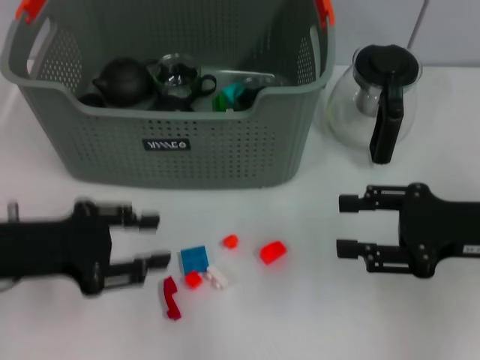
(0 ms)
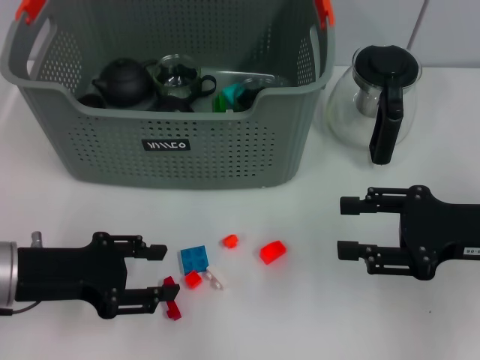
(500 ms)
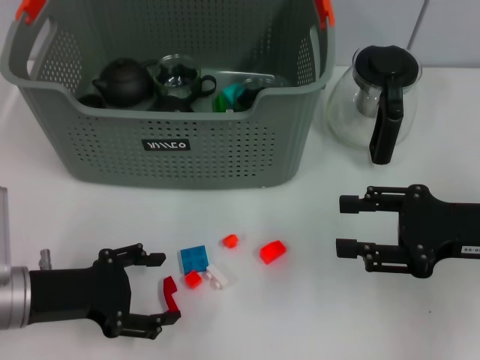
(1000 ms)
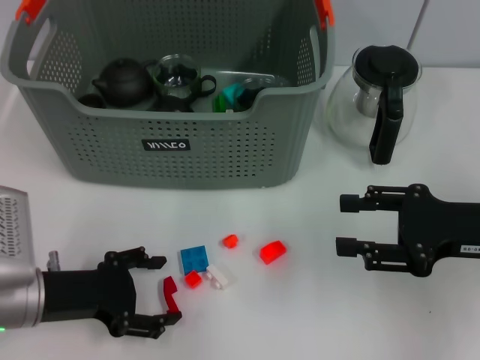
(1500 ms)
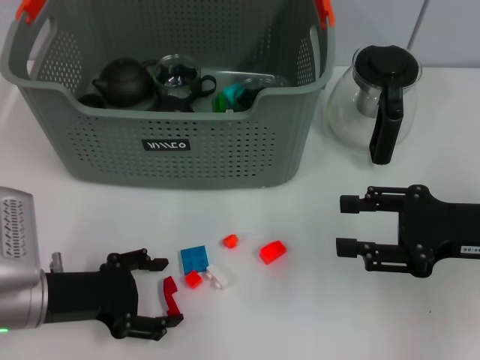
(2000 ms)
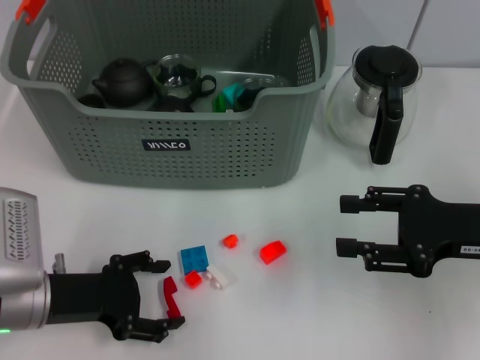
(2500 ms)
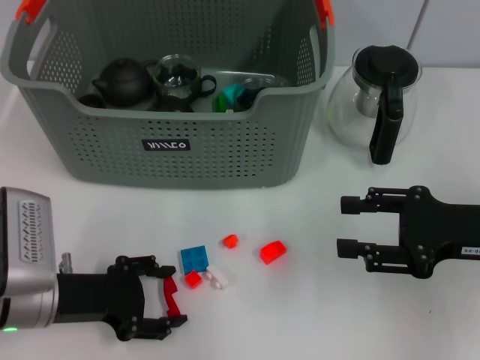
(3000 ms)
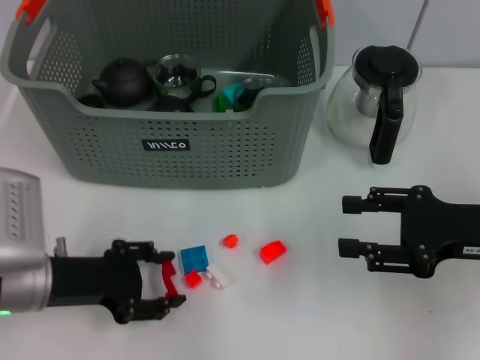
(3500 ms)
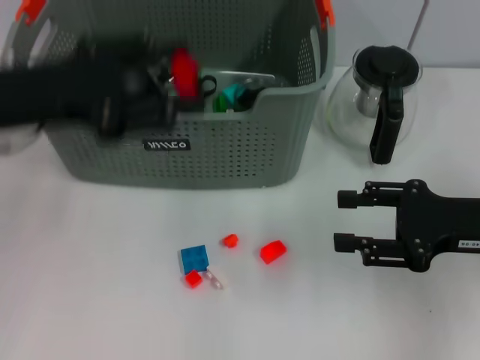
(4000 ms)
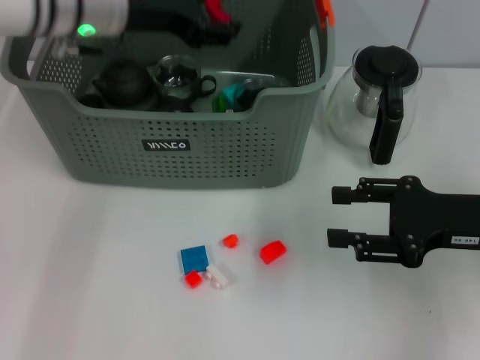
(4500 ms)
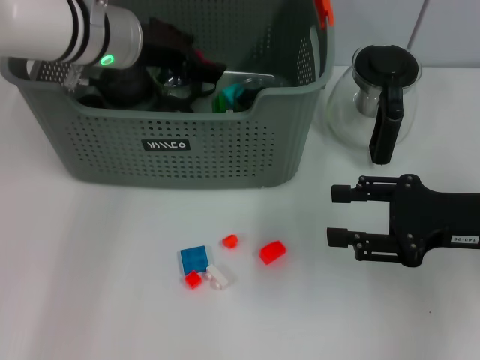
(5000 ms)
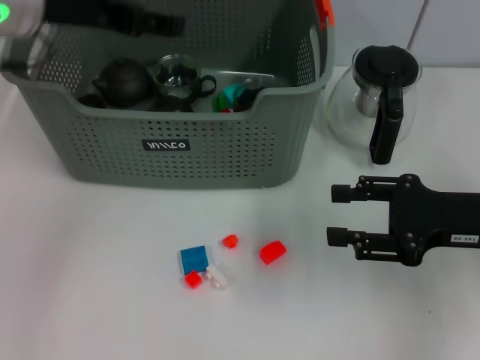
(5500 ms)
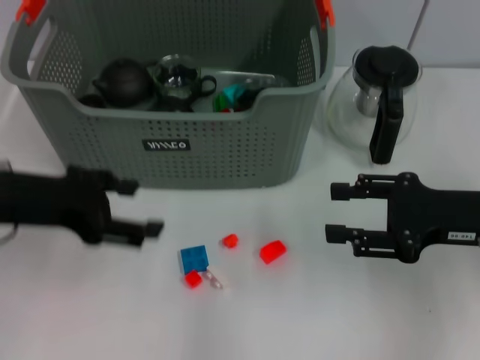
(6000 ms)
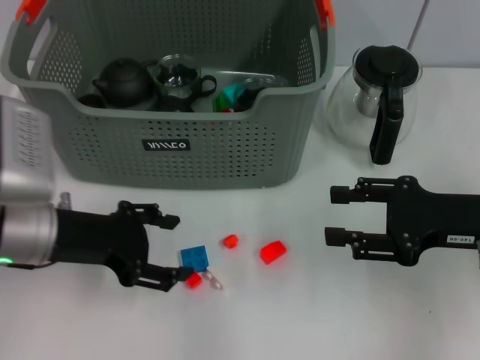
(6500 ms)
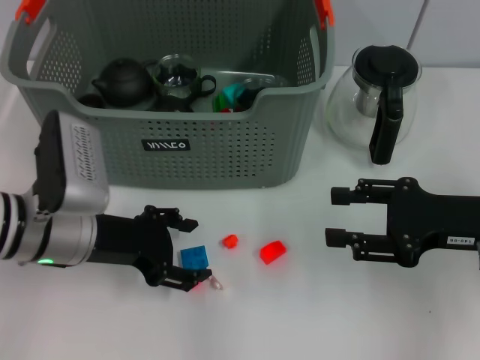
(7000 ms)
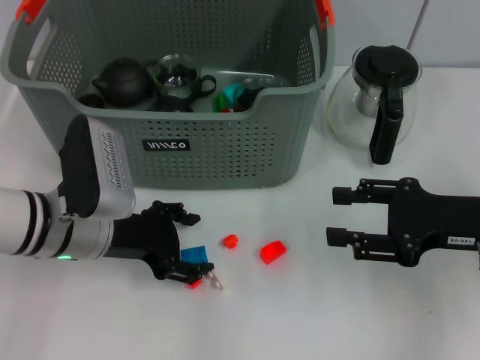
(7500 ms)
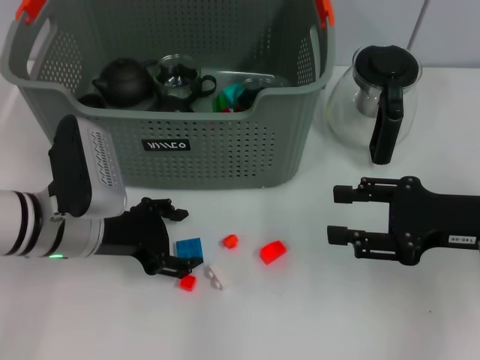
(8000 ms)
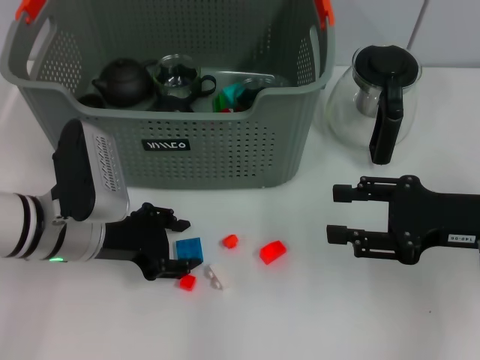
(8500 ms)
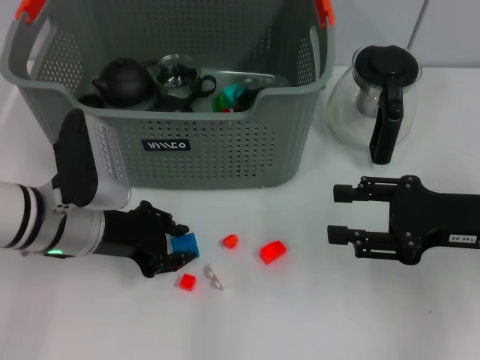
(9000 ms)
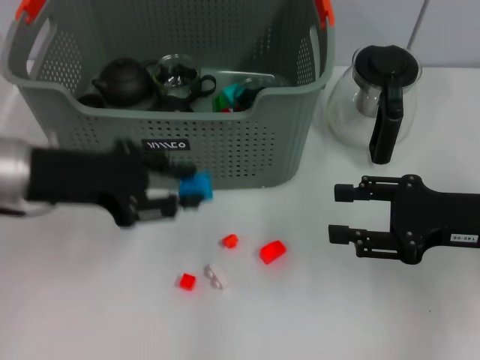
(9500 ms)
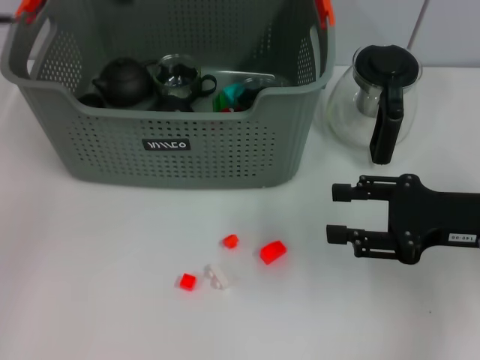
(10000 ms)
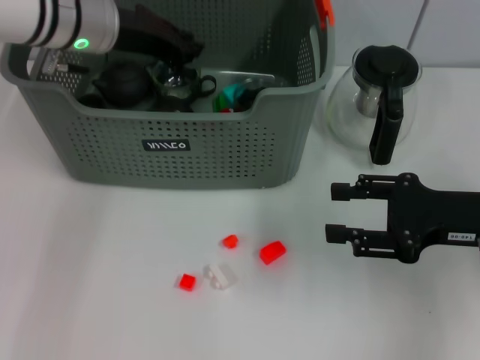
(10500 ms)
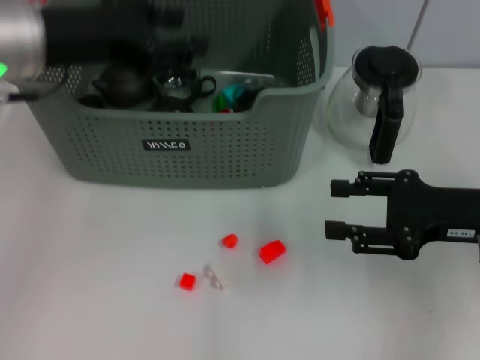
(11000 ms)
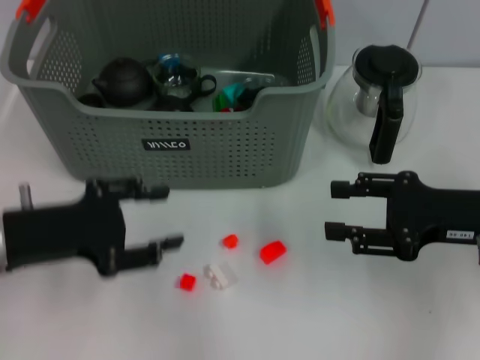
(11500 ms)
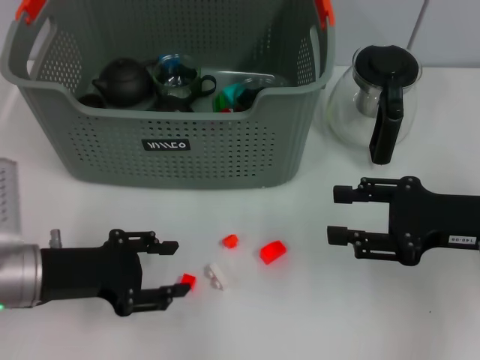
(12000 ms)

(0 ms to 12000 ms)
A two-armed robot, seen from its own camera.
Task of the whole recording: pick up the teacup on the table and place it into the storage bin, pick up the block on the table and place it into the storage bin.
Step, 0 ms - 3500 ms: Grasp the red block with left gripper.
Step, 4000 ms - 5000 ms: Place the red block in the storage box with left gripper.
Step, 6000 ms - 9000 ms: Grasp the dark blue block with left gripper.
Step, 9500 ms - 10000 ms: Place the dark blue block in the storage box with left gripper.
0 ms - 2000 ms: The left gripper moves downward, about 10 cm, and opens its fingers.
2000 ms - 4000 ms: The left gripper goes some 15 cm upward.
4000 ms - 6000 ms: The left gripper reaches some 15 cm forward, then returns.
6000 ms - 8000 ms: The left gripper moves downward and to the right, roughly 10 cm.
8000 ms - 10000 ms: The left gripper goes roughly 20 cm upward, and closes up.
10000 ms - 12000 ms: The left gripper heads downward and backward, covering some 25 cm.

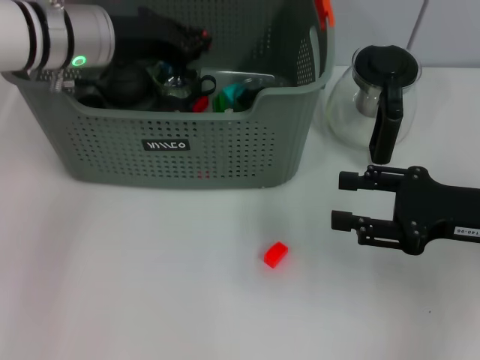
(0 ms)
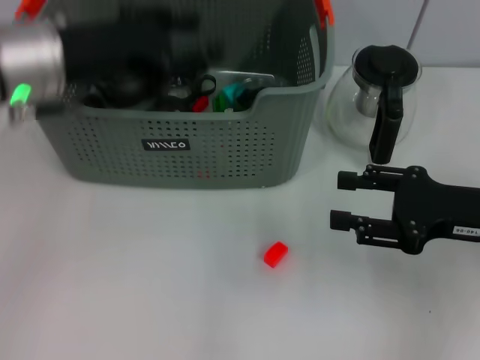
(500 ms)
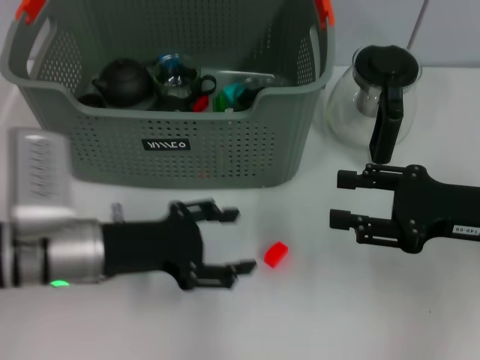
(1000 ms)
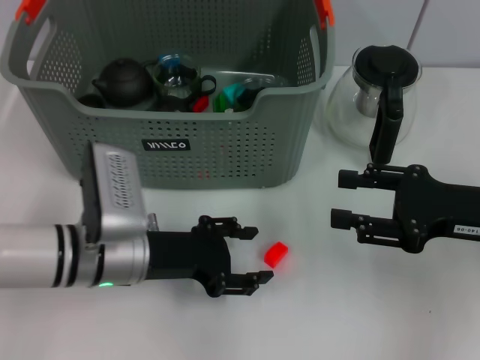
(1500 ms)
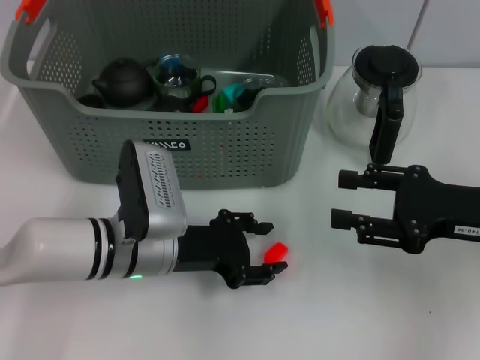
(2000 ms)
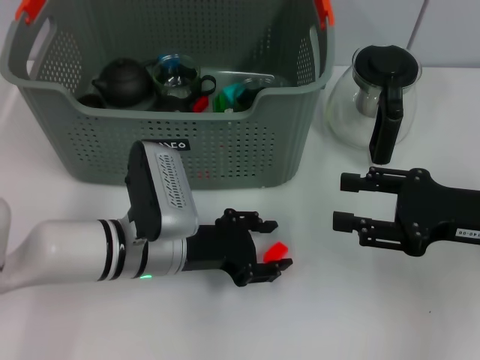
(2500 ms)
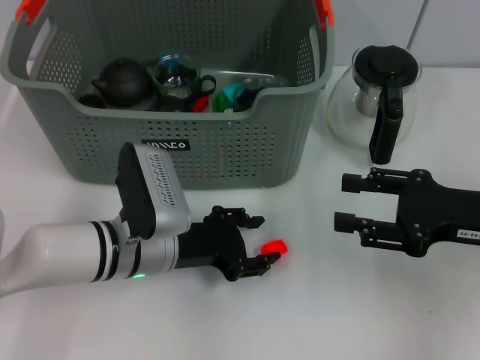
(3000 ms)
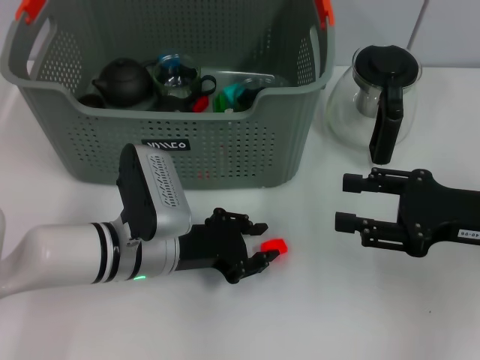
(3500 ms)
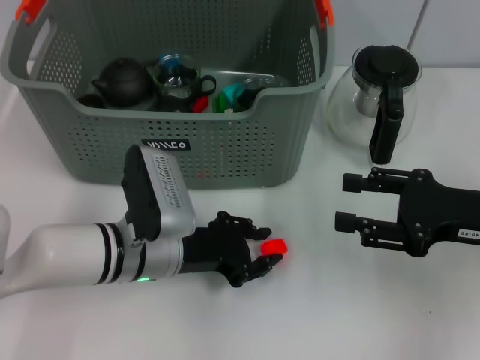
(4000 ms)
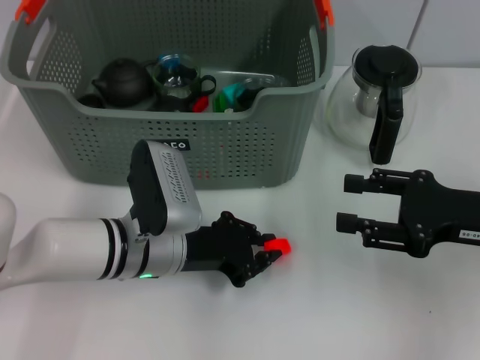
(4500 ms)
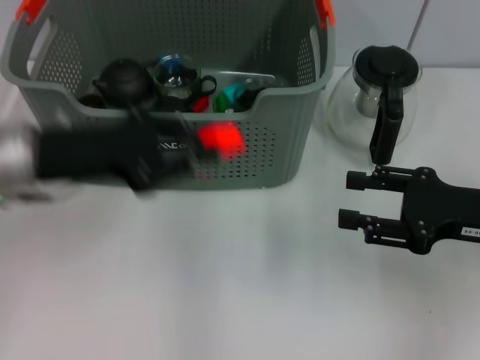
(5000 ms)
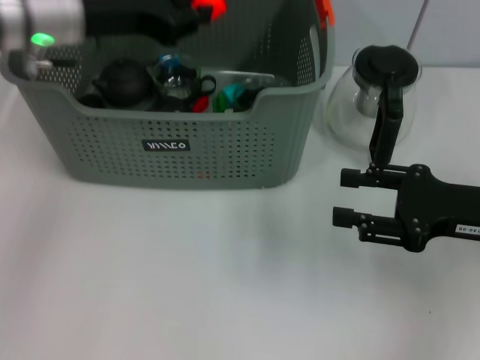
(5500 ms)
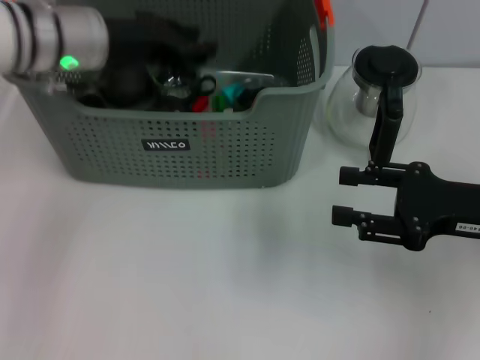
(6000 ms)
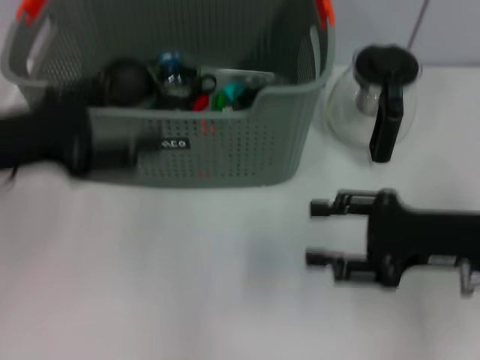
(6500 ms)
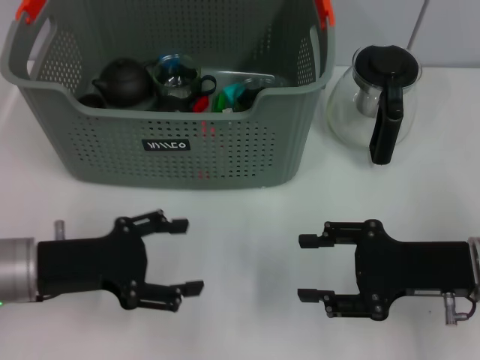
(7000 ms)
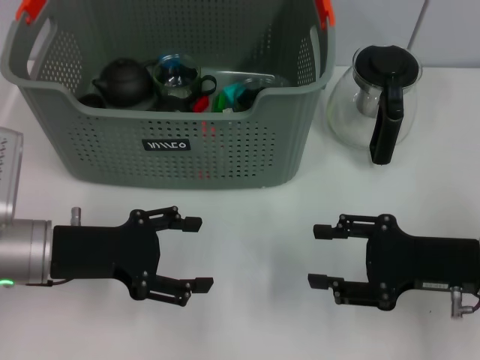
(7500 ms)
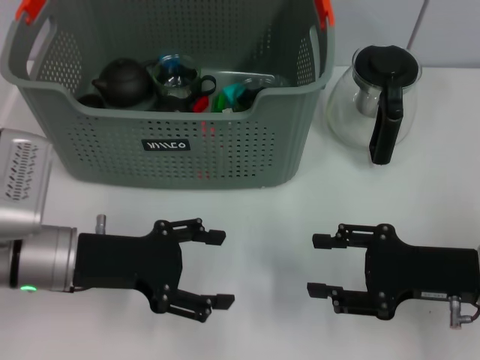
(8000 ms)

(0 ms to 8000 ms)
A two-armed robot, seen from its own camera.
Task of the whole recording: pick up the teacup on the table and place it into the storage bin, pick up the block on the table and place it into the storage bin.
Step, 1000 ms - 4500 ms: Grasp the orange block with left gripper.
Step, 5000 ms - 6000 ms: Place the orange block in the storage box with left gripper.
0 ms - 2000 ms: The left gripper is displaced downward and backward by some 20 cm, and opens.
2000 ms - 4000 ms: The grippers stay close to where they were, moving slightly.
4000 ms - 6000 ms: The left gripper is displaced upward and forward by about 20 cm.
6000 ms - 8000 ms: The right gripper ends up about 5 cm from where it was. Meanwhile the left gripper moves backward and downward, about 20 cm, and opens up.
